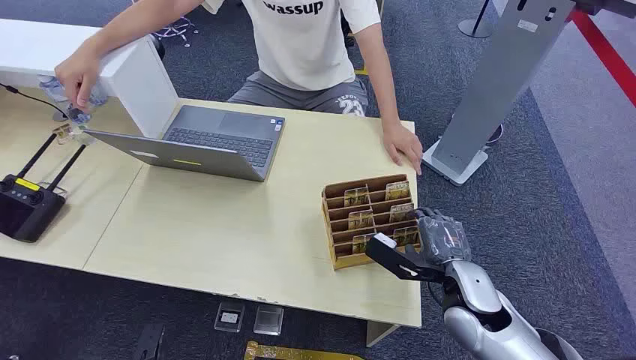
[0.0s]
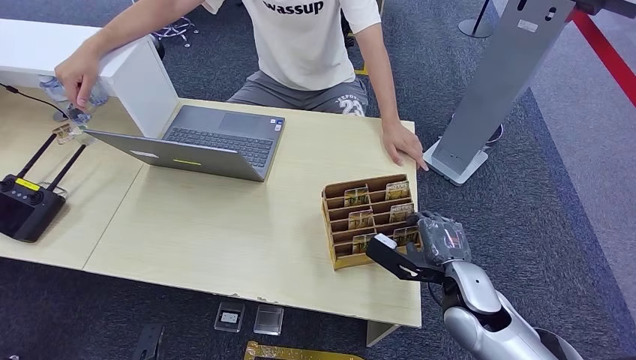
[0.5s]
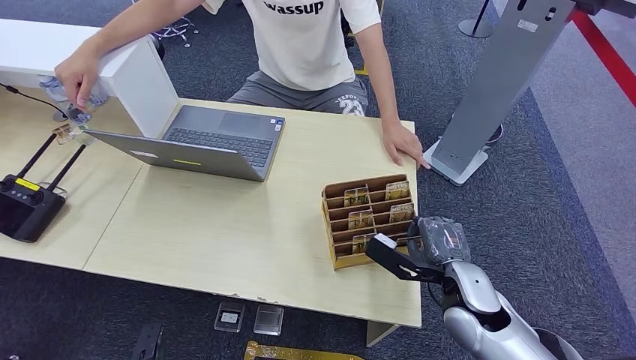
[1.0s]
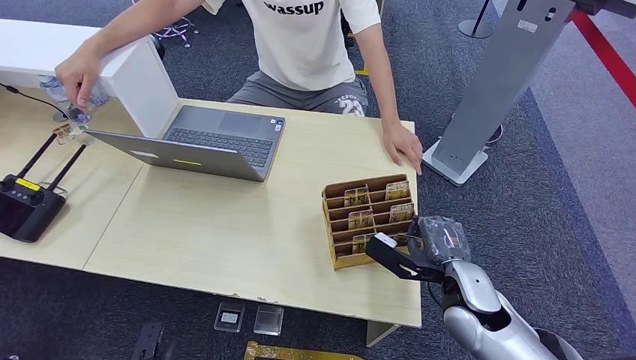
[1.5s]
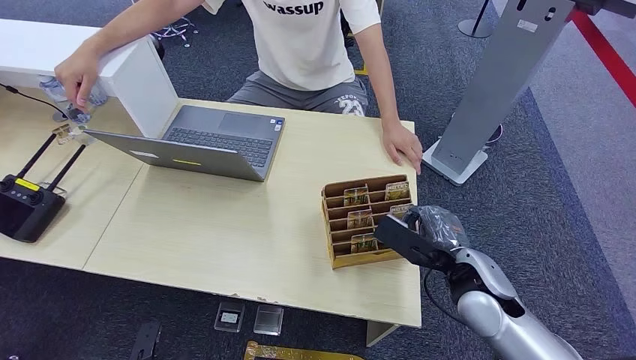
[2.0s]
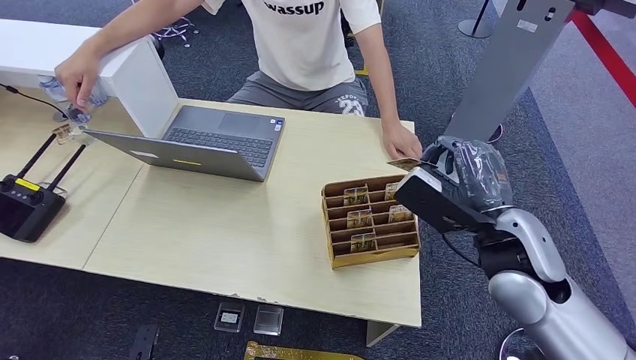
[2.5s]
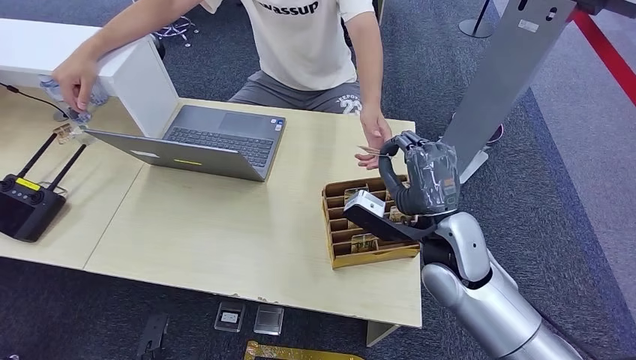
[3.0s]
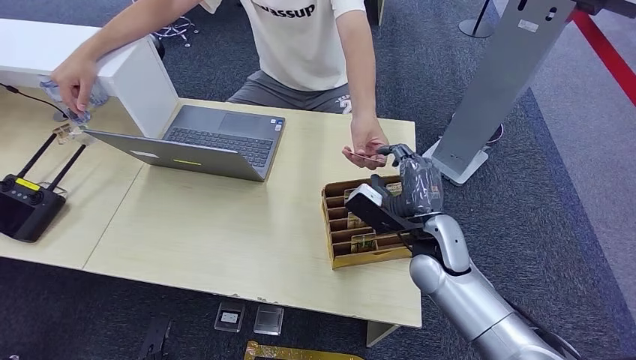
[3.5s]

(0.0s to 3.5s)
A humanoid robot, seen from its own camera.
Step, 0.0s - 2.0s: Pick up the room card from the card holder.
Step, 2.5s - 3.5s: Hand the room card to the target.
2.0s - 3.5s: The right hand heads to the left and forward, covering roughly 10 cm, and reaches approximately 10 cm upward, then returns.
